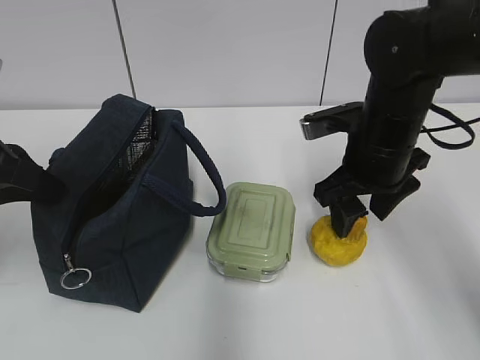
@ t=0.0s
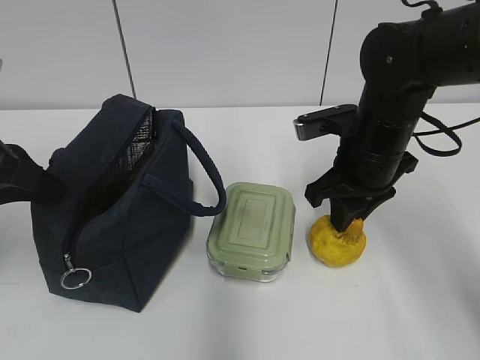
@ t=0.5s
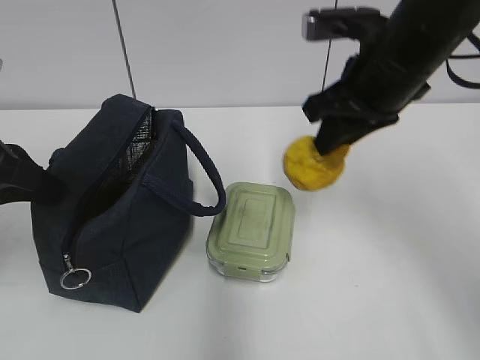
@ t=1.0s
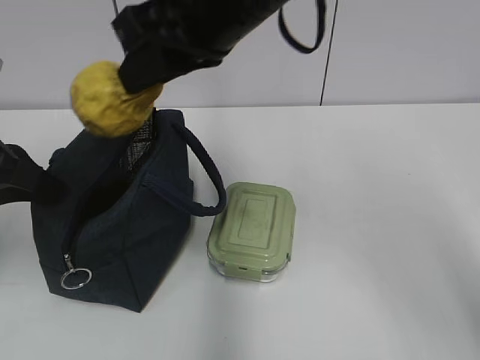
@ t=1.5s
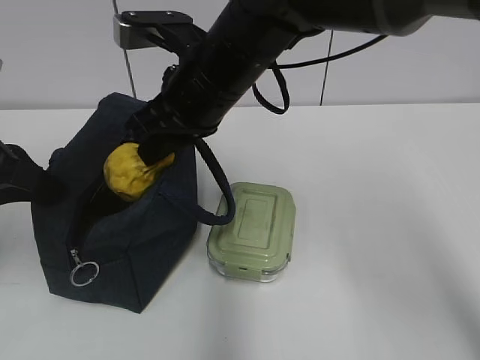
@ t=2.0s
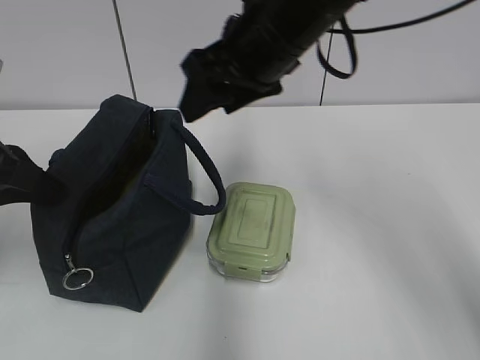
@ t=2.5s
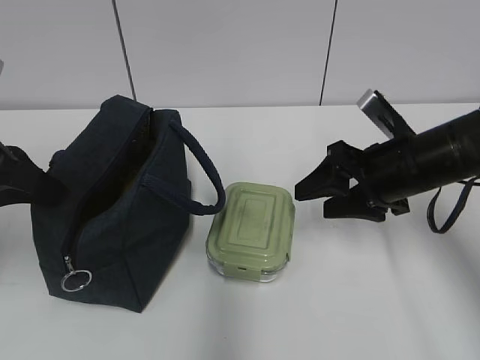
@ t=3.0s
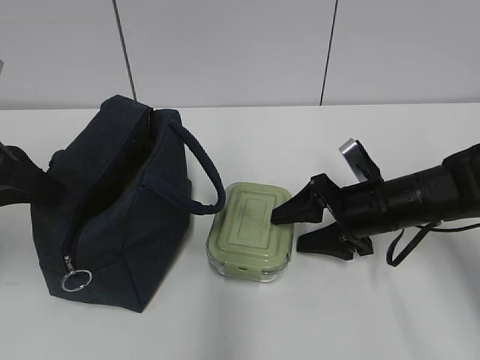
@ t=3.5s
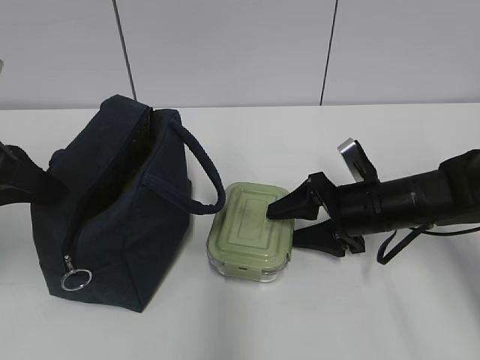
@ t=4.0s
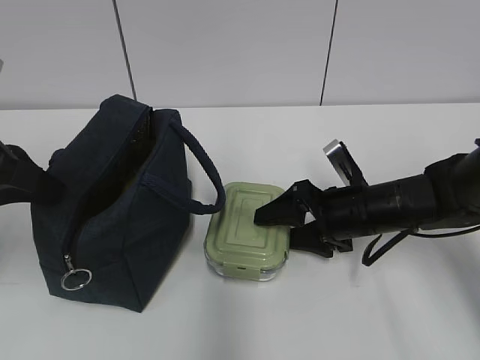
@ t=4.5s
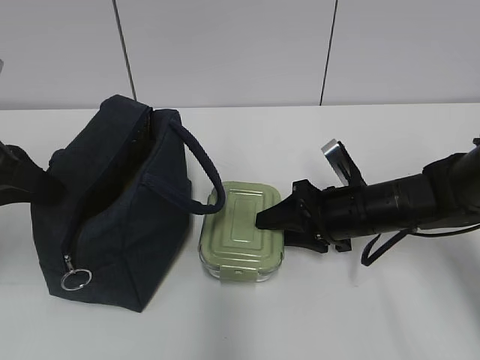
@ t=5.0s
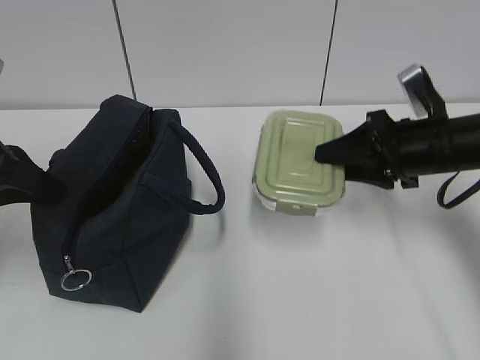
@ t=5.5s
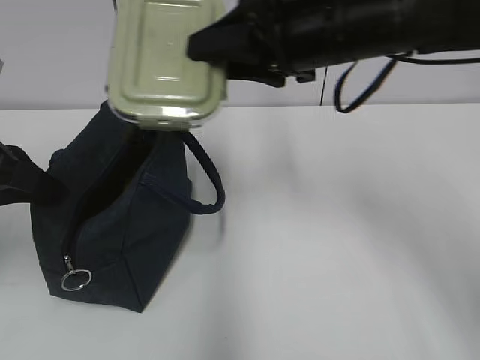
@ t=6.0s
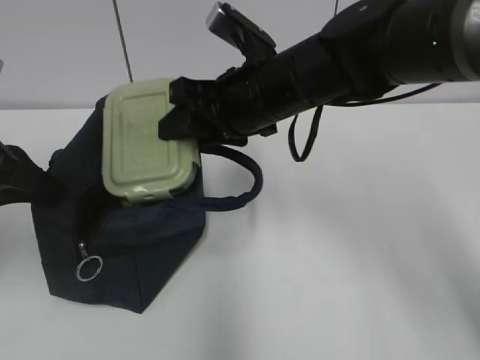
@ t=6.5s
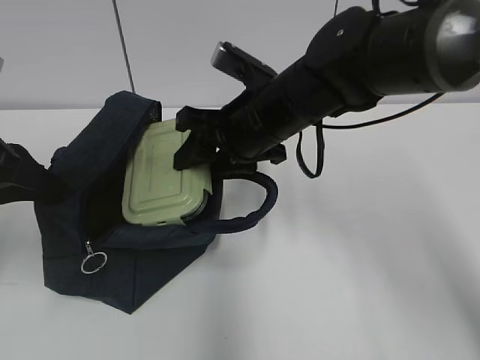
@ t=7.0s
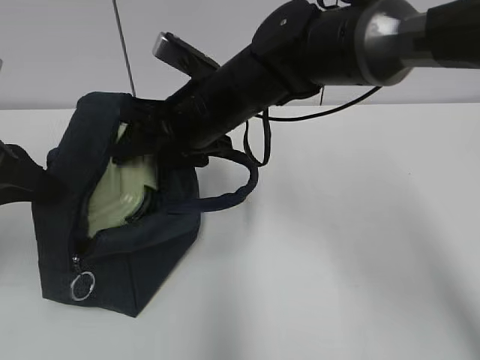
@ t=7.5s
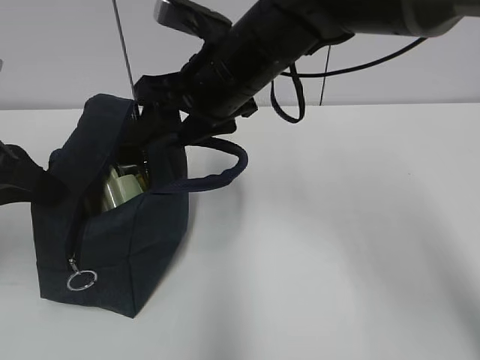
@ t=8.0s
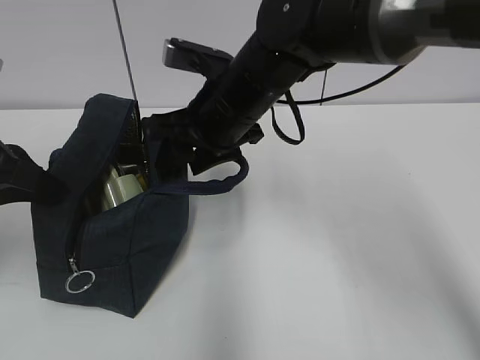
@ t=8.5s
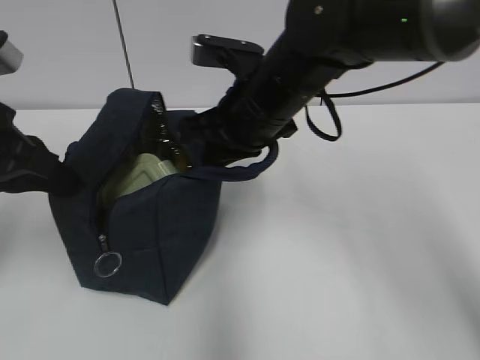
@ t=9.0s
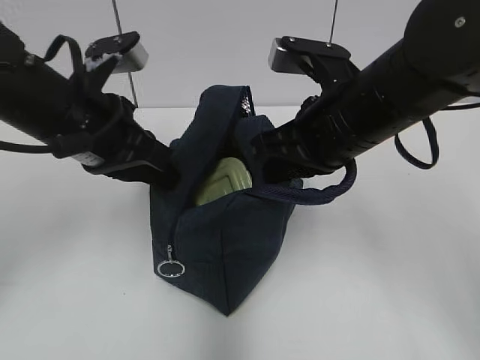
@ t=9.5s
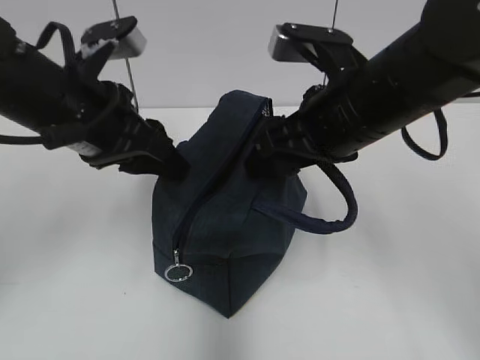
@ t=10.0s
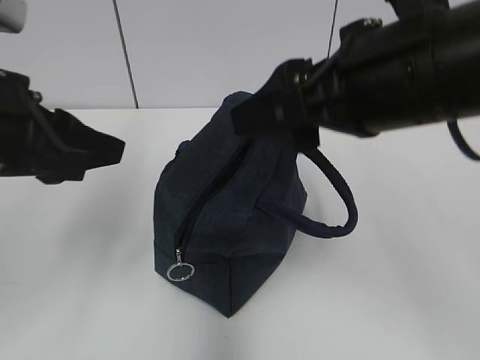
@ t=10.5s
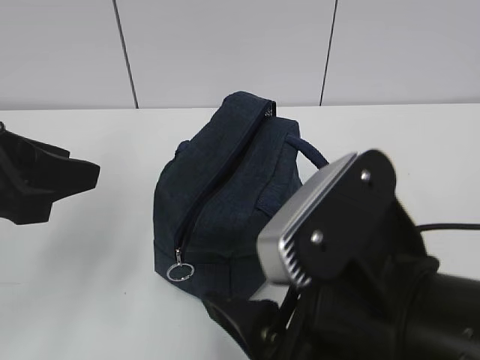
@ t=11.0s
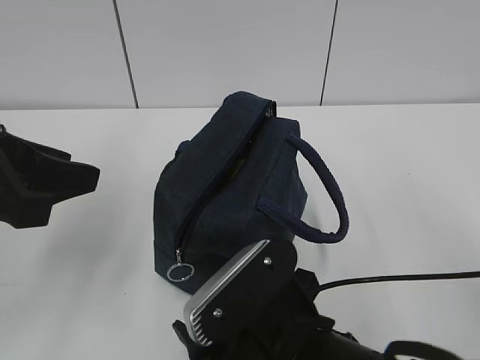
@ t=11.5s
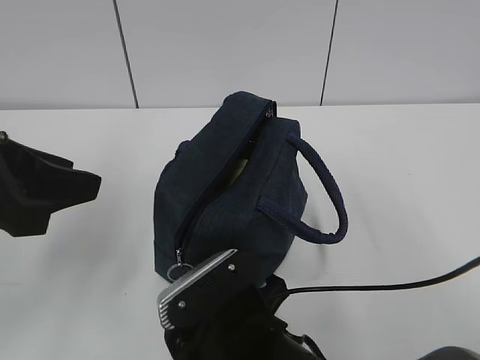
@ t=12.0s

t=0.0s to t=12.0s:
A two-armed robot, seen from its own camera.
Step, t=0.5s to t=2.0s: Place it into the bag with your right hand.
Step, t=2.5s to t=4.5s: Grab the lunch box with your right hand.
Step, t=8.0s to t=8.5s: Grab the lunch bag with your right hand.
Step, t=9.0s to t=10.0s: Move the lunch bag to the right.
t=0.0s to t=2.0s: The right gripper heads to the left and upward, covering about 20 cm, and closes up.
t=2.0s to t=4.0s: The right gripper goes about 25 cm to the right and downward, and opens.
t=4.0s to t=6.0s: The right gripper travels upward and to the left by about 25 cm, and closes its fingers.
t=6.0s to t=8.0s: The right gripper goes some 10 cm to the left.
t=8.0s to t=10.0s: The right gripper shifts roughly 10 cm to the right and backward, and closes and opens again. The left gripper is displaced to the right by some 10 cm, and opens its fingers.
t=10.0s to t=12.0s: The right gripper travels downward, backward and to the left by about 25 cm. The left gripper is displaced backward and to the left by some 10 cm.

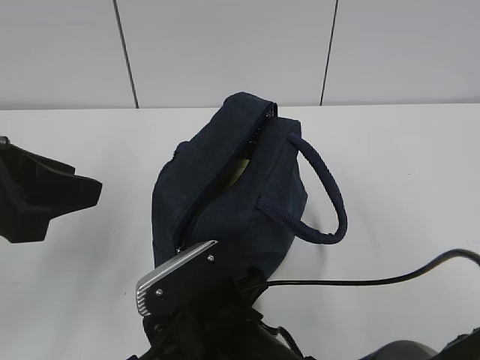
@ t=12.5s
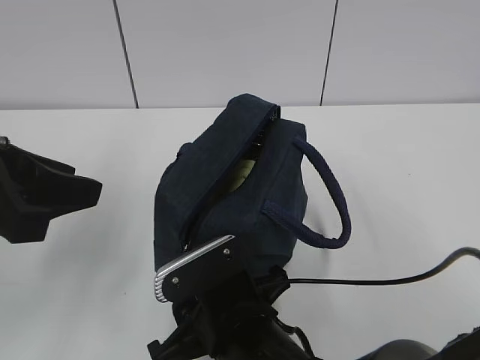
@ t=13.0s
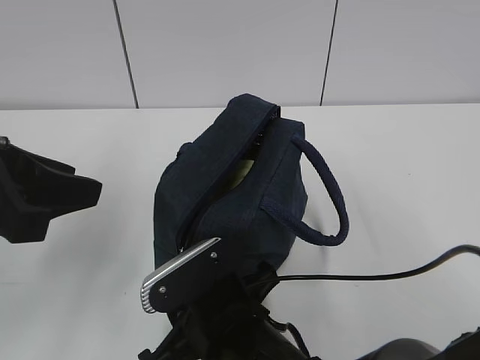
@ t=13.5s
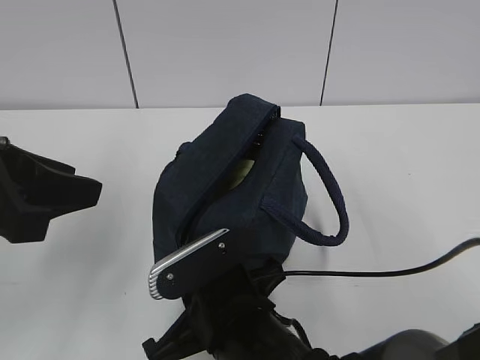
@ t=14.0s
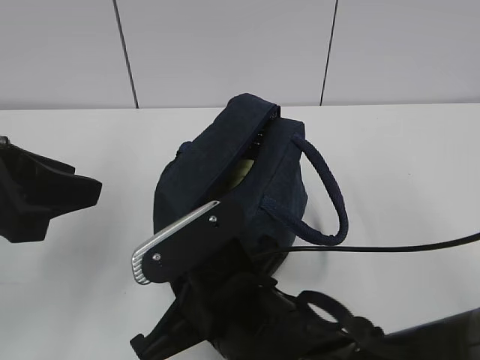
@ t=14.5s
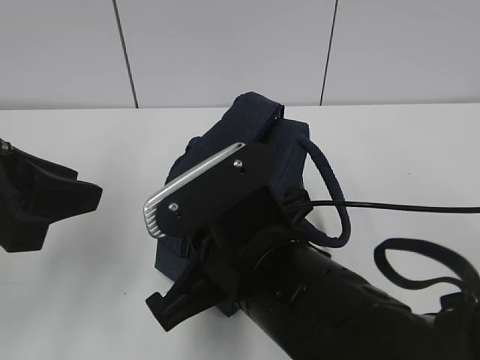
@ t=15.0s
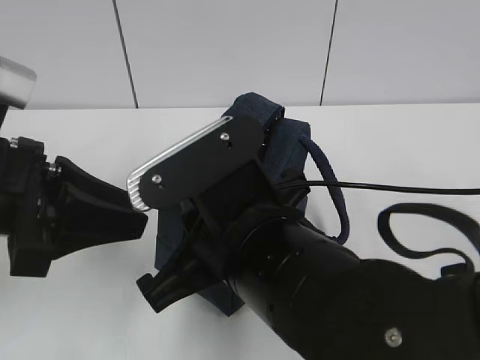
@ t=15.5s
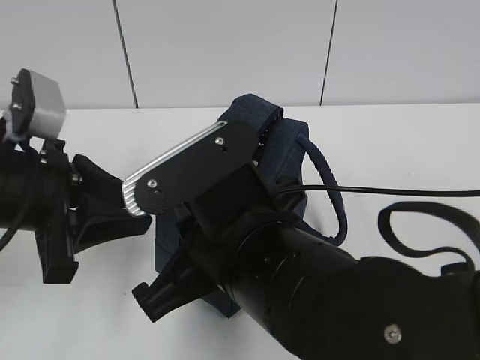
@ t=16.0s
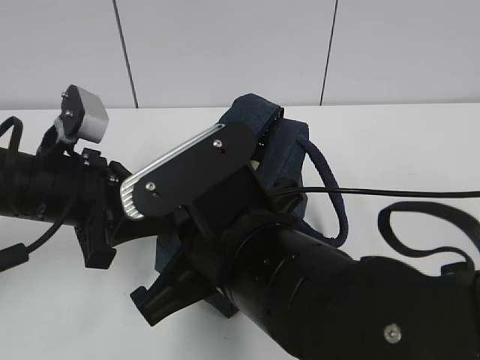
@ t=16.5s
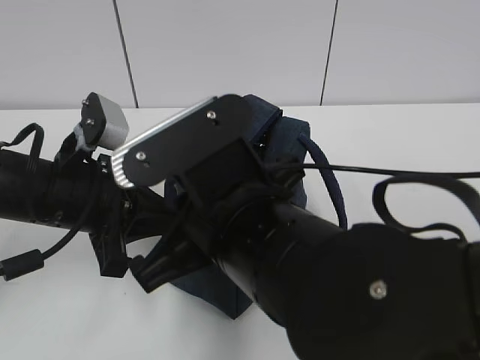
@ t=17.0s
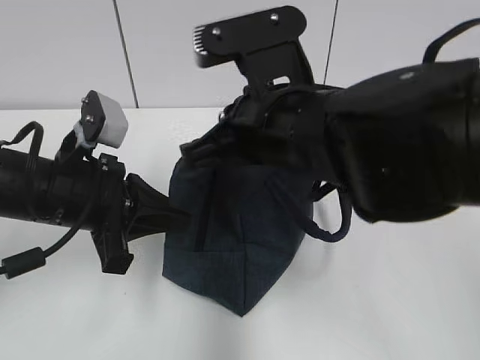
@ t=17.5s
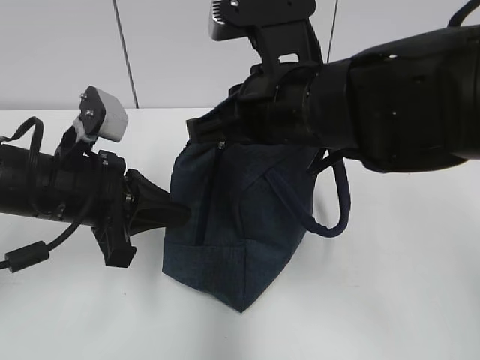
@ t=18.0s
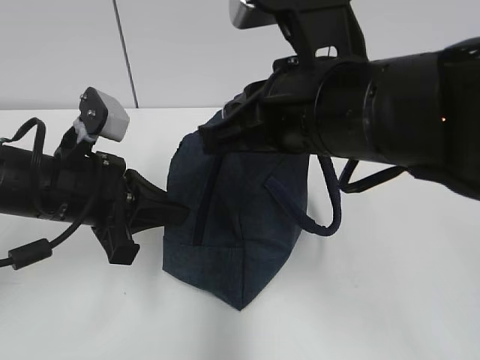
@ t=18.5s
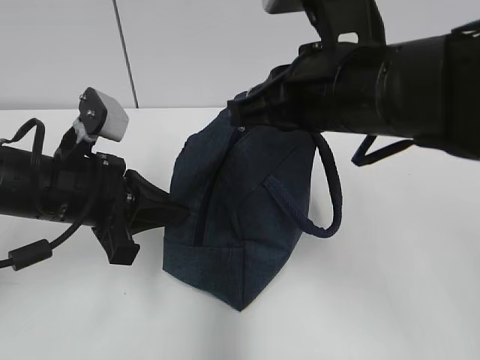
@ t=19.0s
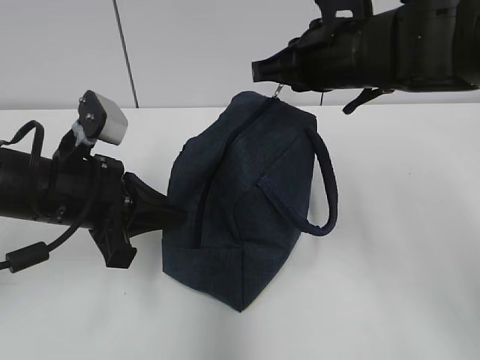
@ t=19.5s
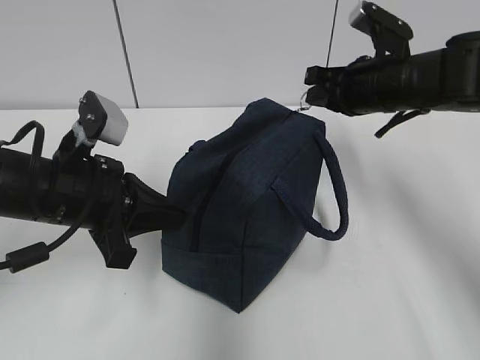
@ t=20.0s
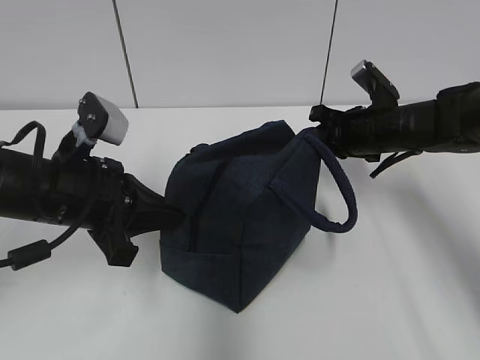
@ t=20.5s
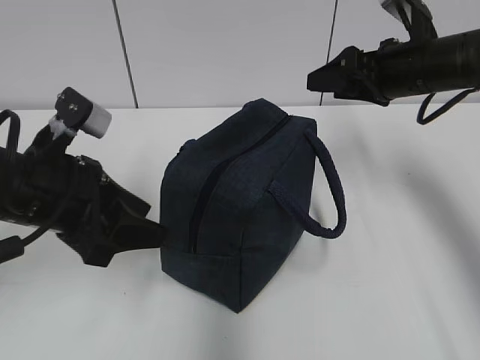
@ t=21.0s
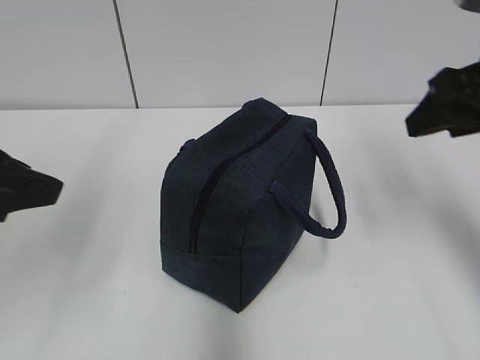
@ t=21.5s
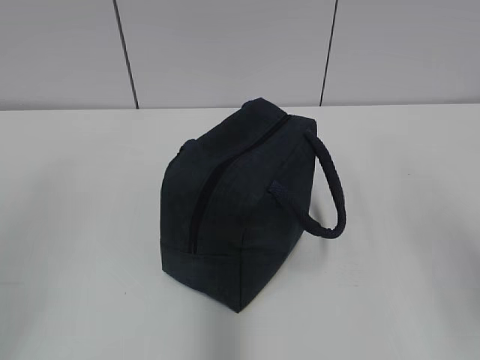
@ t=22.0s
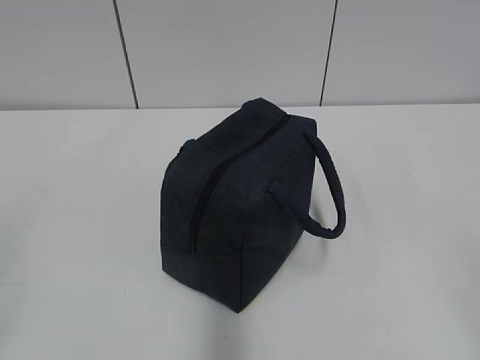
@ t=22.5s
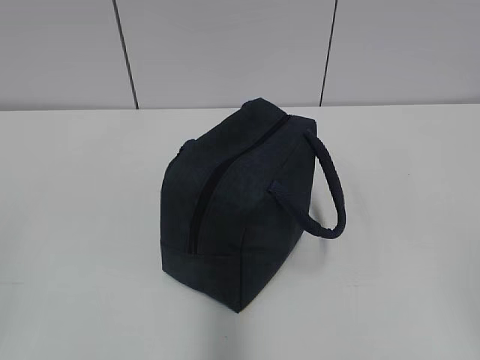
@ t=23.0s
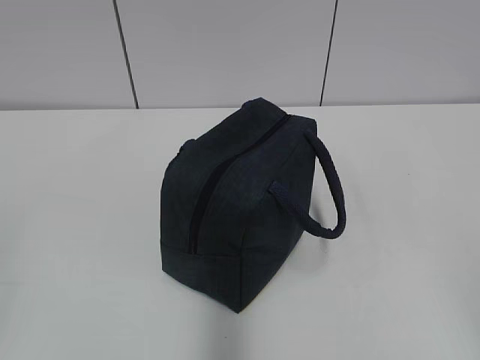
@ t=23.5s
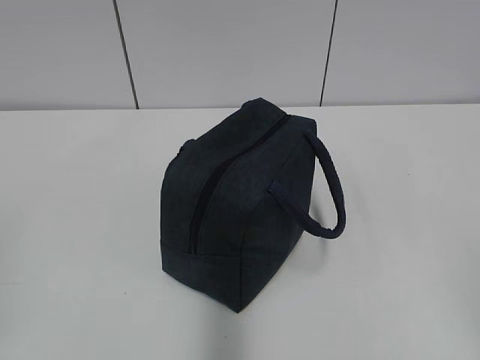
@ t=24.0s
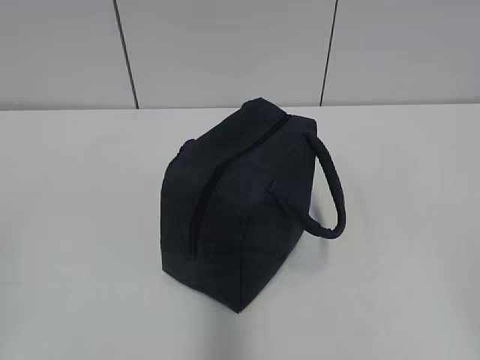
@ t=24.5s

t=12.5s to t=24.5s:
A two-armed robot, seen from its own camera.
Step, t=12.5s to t=20.5s: Pull the zipper with your right hand.
t=12.5s to t=14.5s: The right gripper travels upward by some 5 cm, and closes.
t=14.5s to t=16.5s: The left gripper shifts about 10 cm downward and forward. The right gripper heads upward, covering about 5 cm.
t=16.5s to t=18.5s: The right gripper heads upward, forward and to the right, covering some 10 cm; the left gripper closes its fingers.
t=18.5s to t=20.5s: The right gripper heads forward, downward and to the right, covering roughly 30 cm.
t=20.5s to t=22.5s: The left gripper goes some 30 cm backward and to the left, and opens, while the right gripper shifts some 40 cm backward, and opens up.

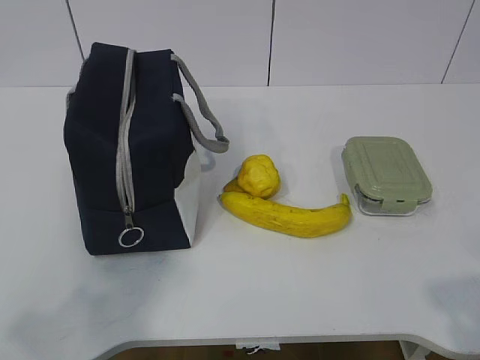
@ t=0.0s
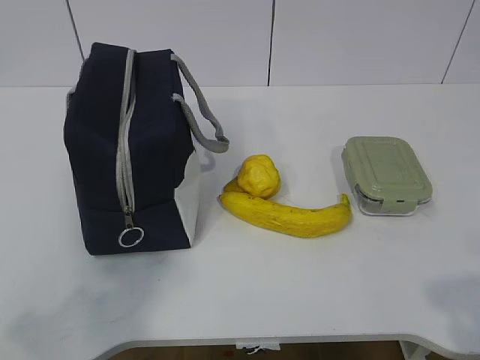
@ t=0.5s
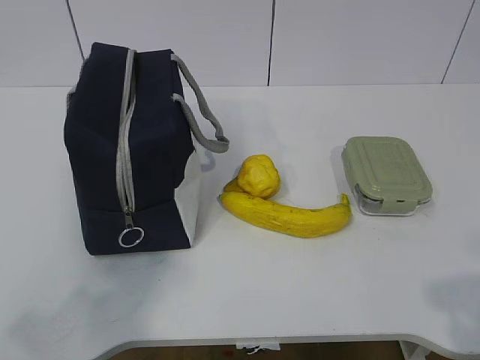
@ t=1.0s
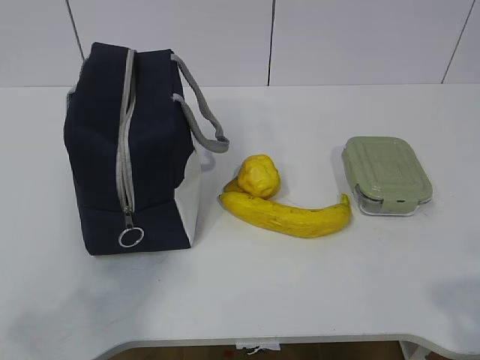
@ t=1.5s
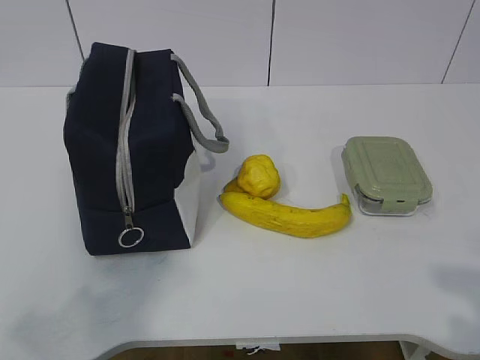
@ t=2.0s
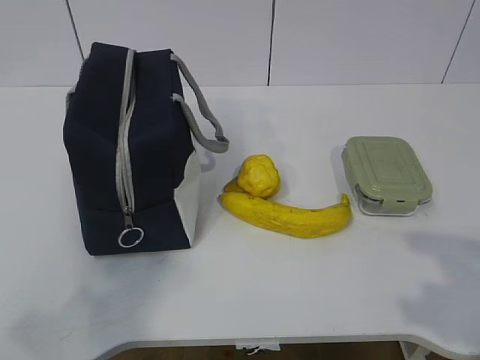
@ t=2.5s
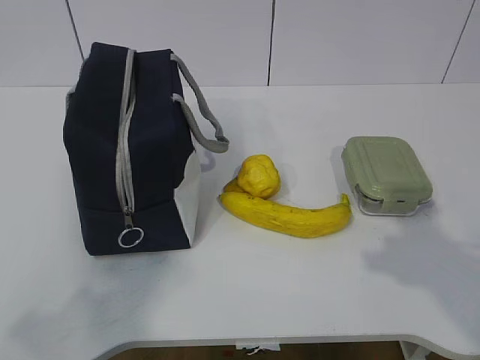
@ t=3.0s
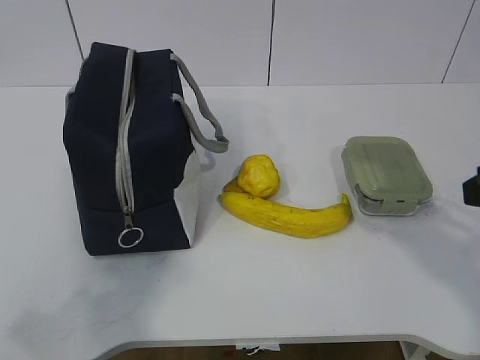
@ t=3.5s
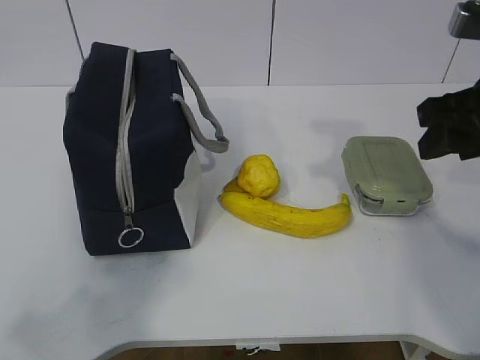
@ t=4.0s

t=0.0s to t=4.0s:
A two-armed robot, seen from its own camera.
t=2.0s to t=4.0s: The right gripper heads forward, covering roughly 30 cm.
